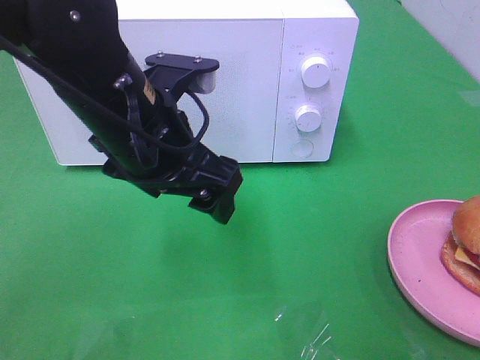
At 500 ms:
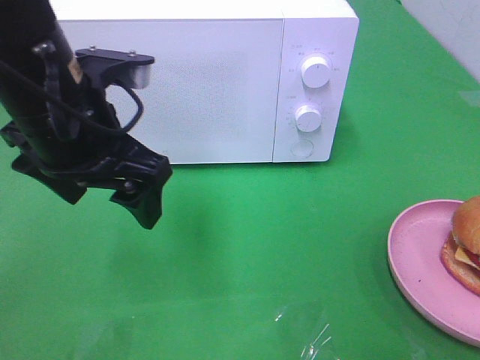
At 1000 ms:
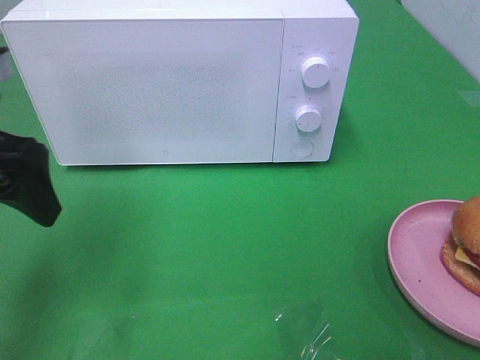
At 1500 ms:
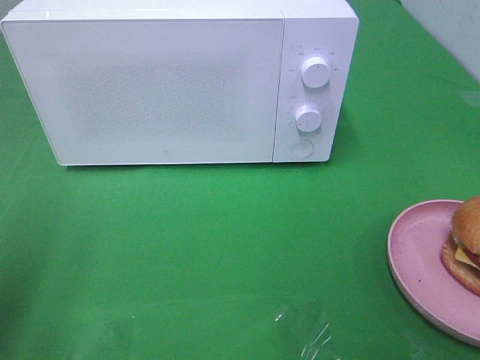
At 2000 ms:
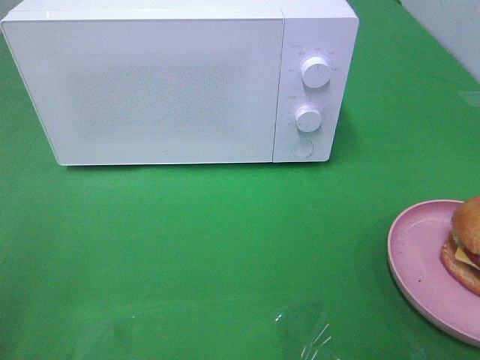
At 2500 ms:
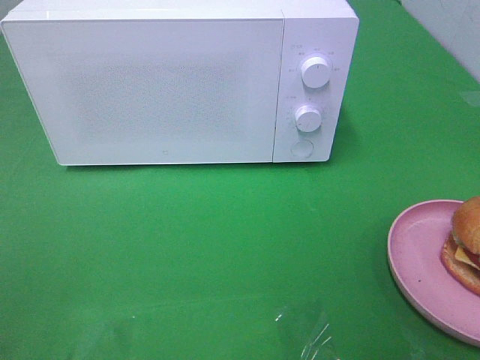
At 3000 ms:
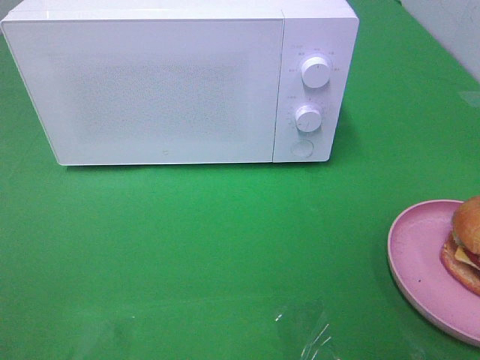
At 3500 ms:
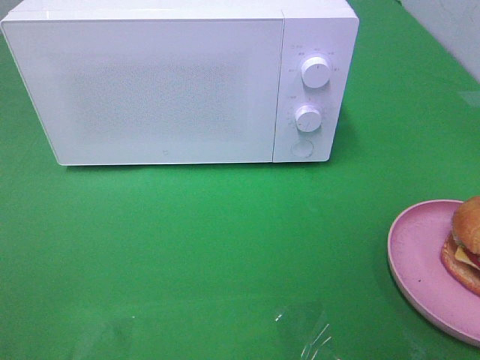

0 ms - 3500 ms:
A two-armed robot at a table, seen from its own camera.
Task of the whole recording: Heat the burger.
0 ms - 2000 ms: The left gripper shifts about 30 cm to the left and backward.

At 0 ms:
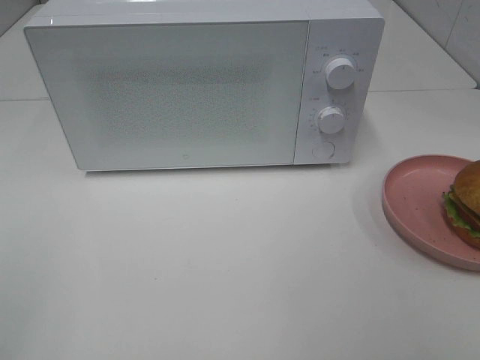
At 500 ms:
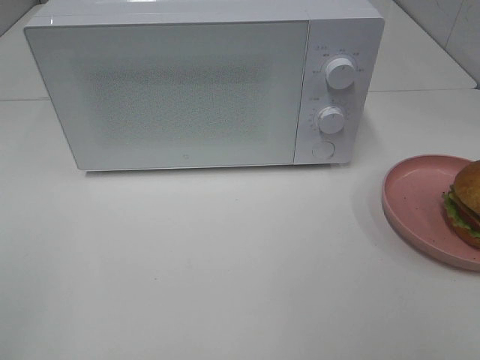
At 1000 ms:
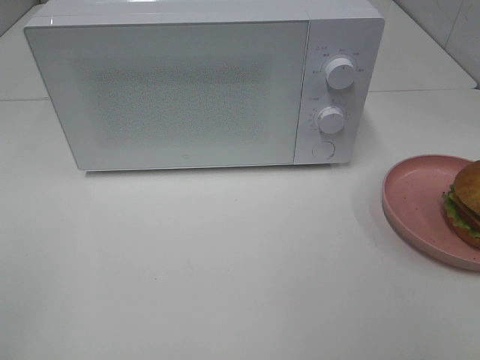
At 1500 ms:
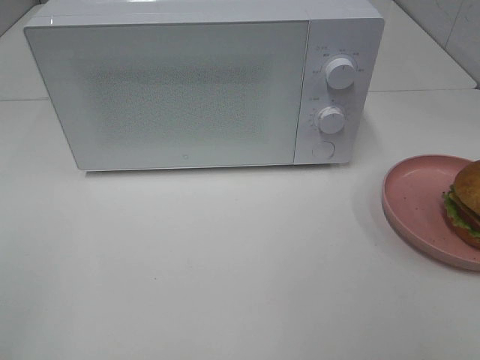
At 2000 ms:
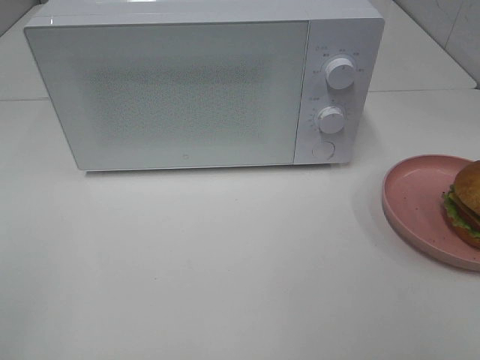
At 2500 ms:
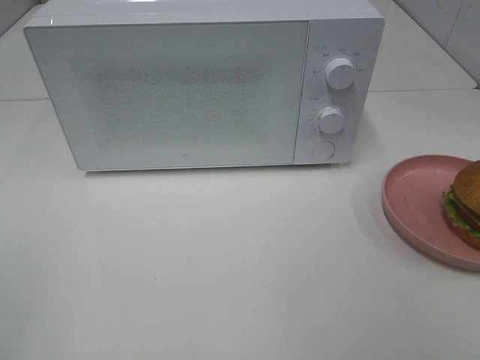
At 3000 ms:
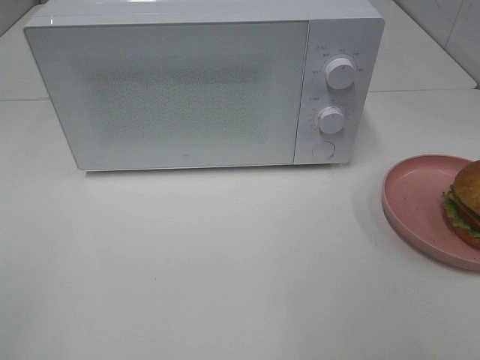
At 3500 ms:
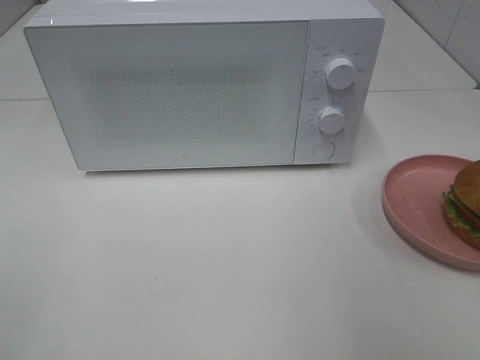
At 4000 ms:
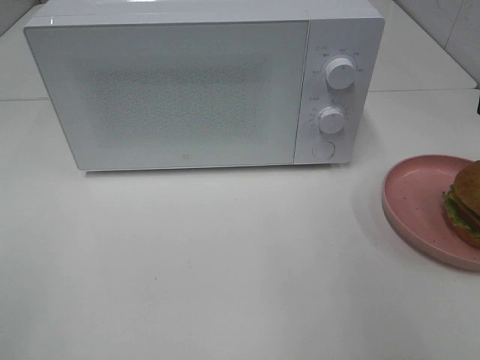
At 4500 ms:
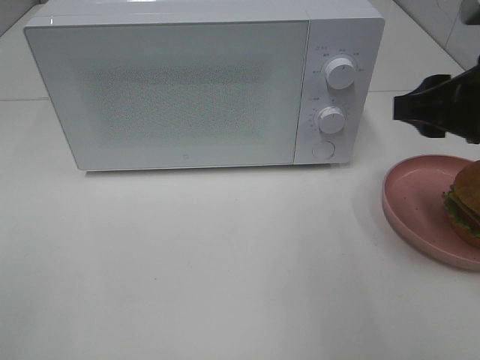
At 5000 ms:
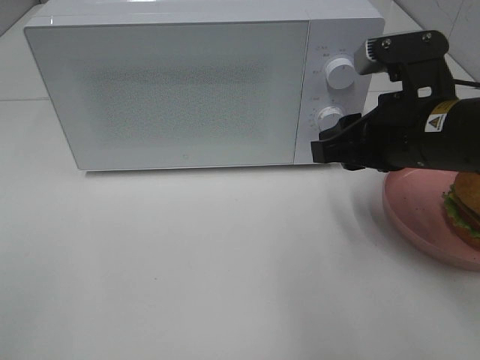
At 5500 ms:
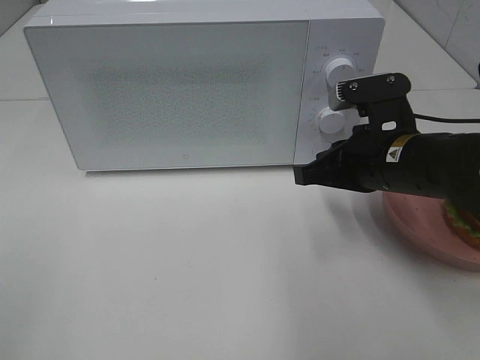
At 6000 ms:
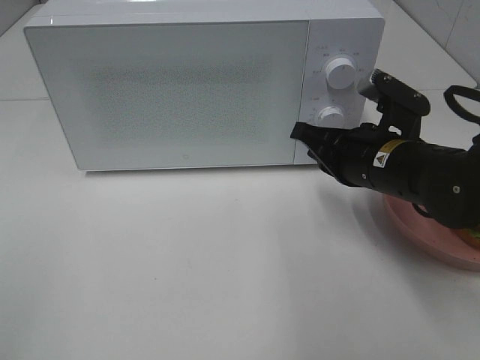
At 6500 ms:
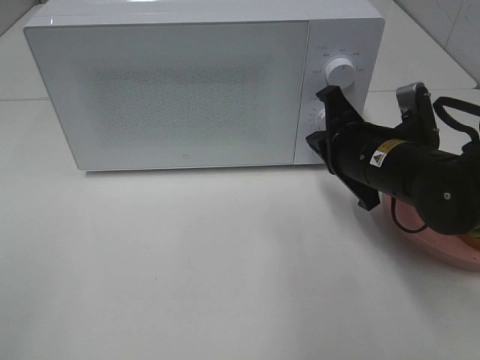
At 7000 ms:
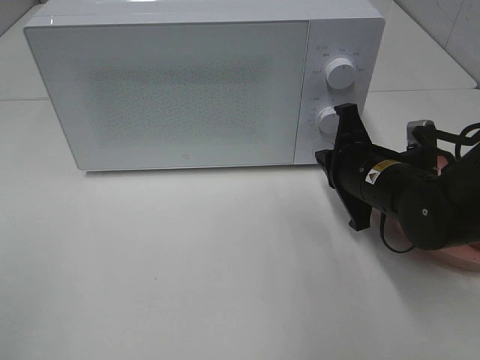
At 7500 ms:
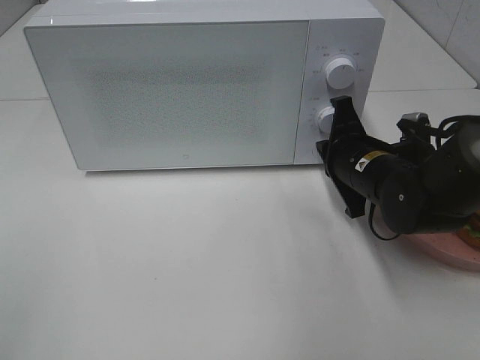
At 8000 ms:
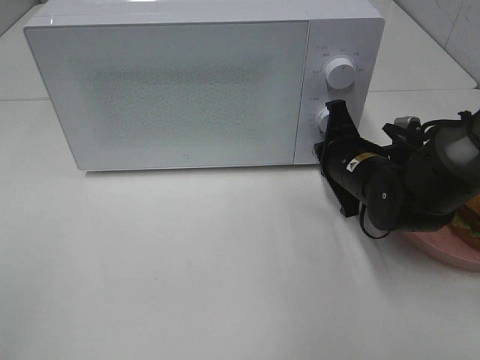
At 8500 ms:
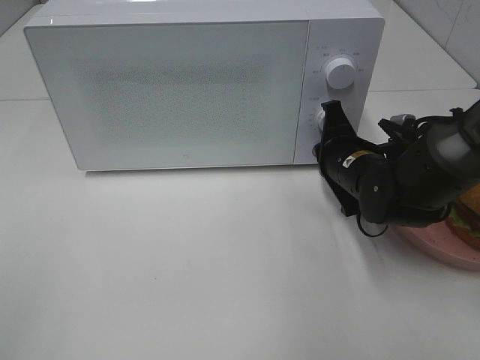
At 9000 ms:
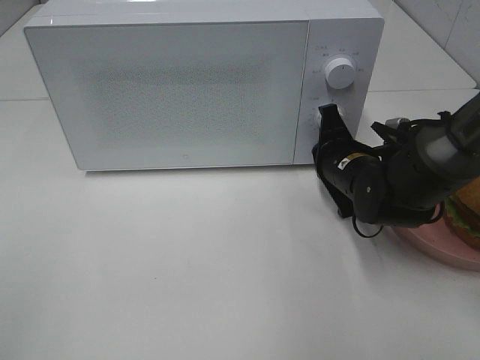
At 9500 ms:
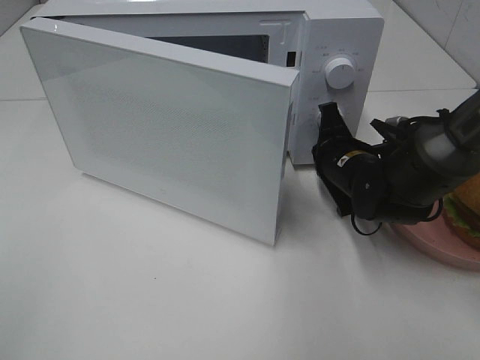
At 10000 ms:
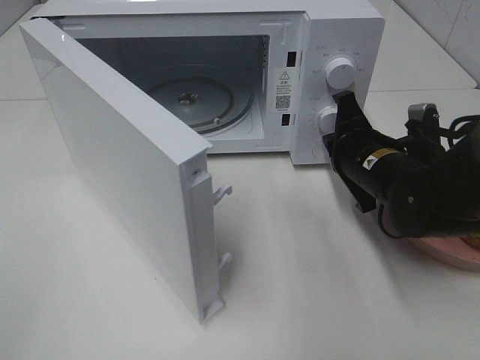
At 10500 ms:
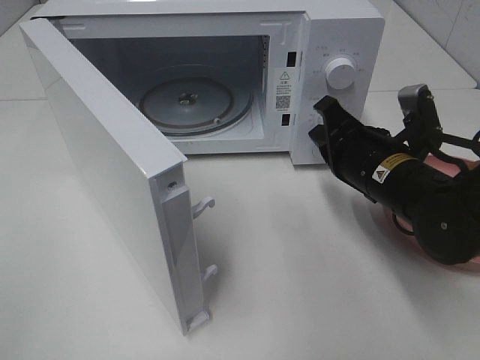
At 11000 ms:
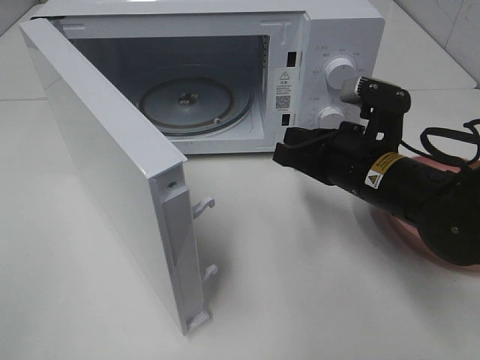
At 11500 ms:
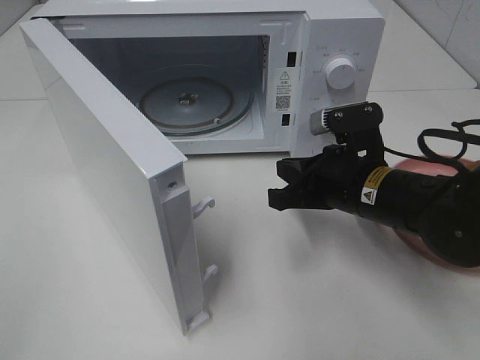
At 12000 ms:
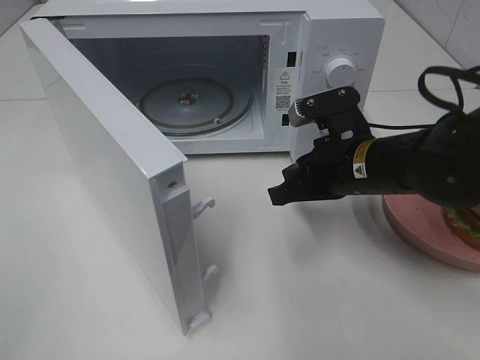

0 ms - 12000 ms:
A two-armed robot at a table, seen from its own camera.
Task of the whole recording: Heat the burger.
Step, 0 ms - 9500 ms: Right hand: press the switch.
0 ms - 2000 ms: Neither gripper changes place.
4000 ms - 6000 ms: The right gripper shifts roughly 20 cm downward, to the left and forward, and closes.
6000 ms - 8000 ms: The right gripper travels downward by approximately 5 cm.

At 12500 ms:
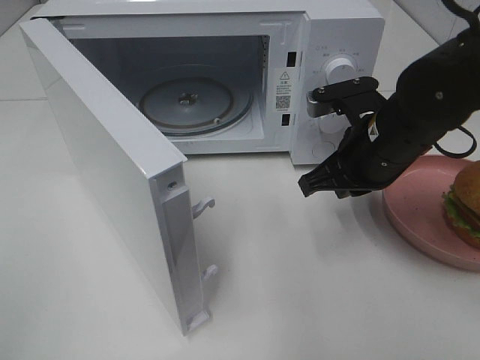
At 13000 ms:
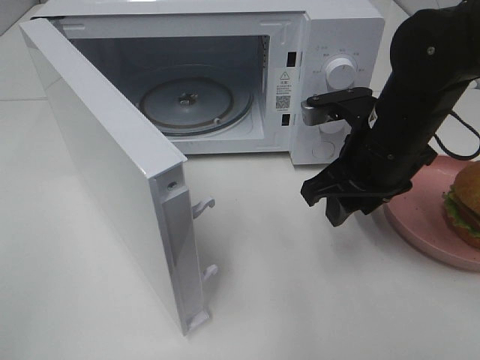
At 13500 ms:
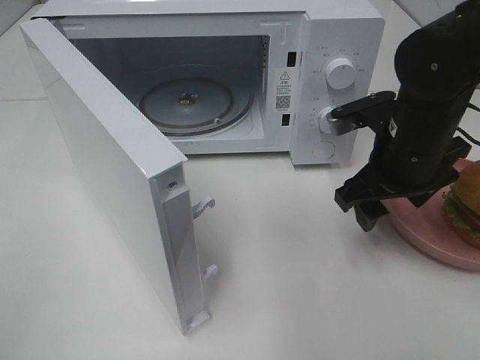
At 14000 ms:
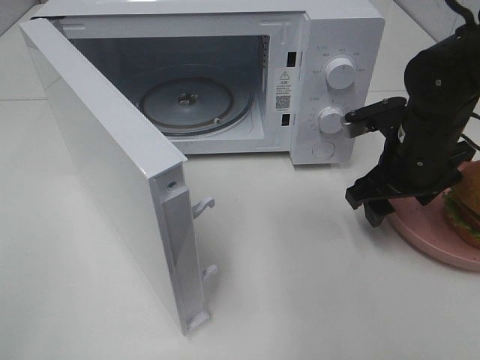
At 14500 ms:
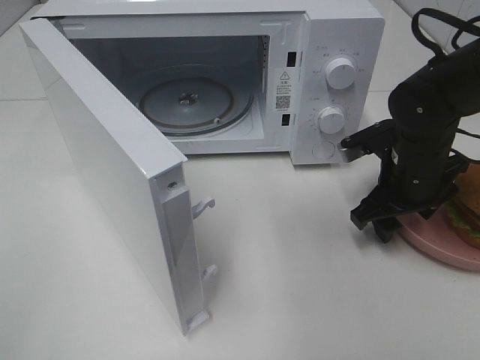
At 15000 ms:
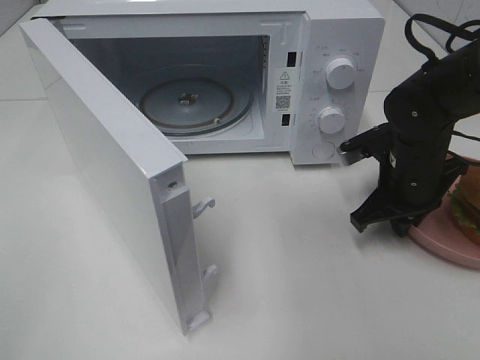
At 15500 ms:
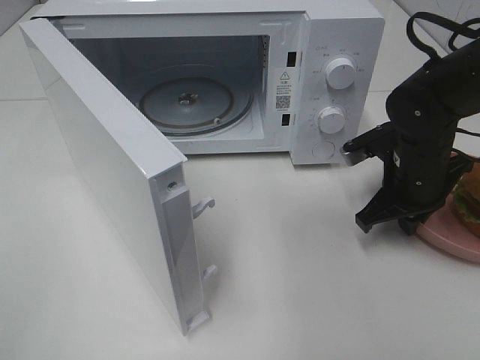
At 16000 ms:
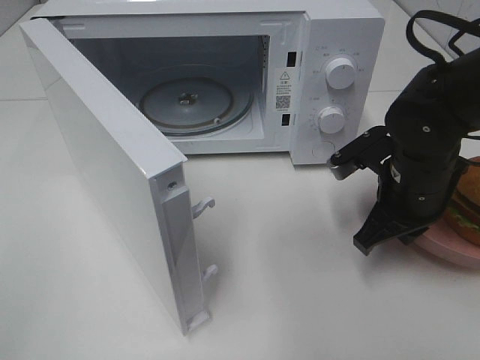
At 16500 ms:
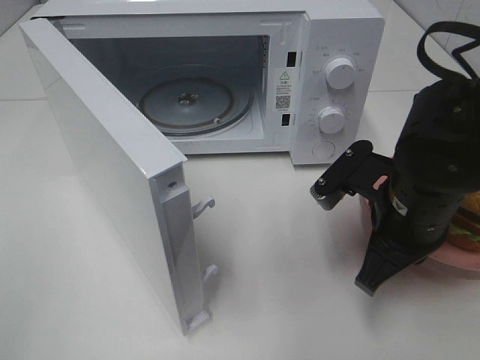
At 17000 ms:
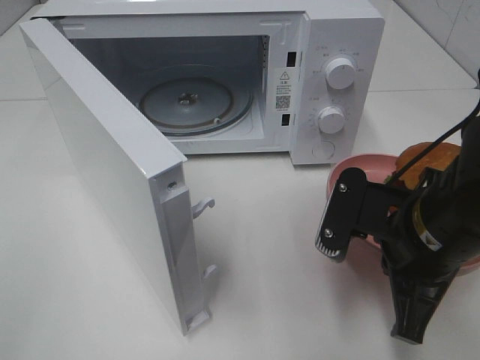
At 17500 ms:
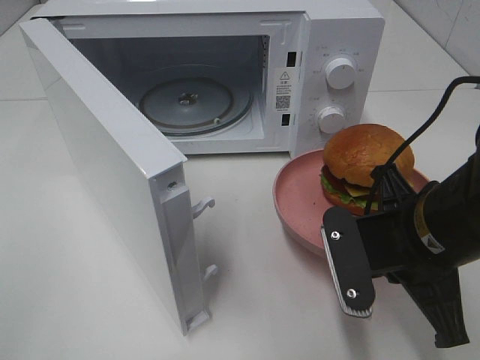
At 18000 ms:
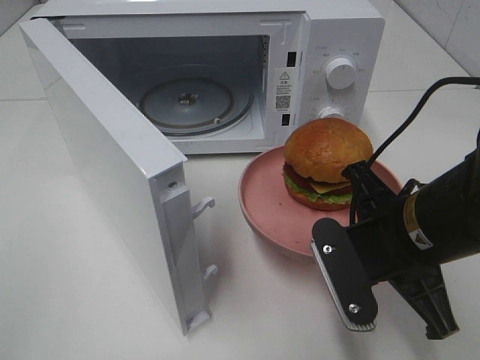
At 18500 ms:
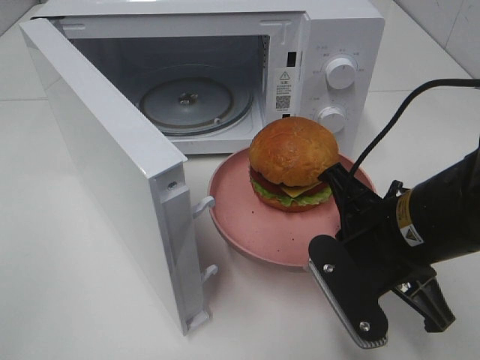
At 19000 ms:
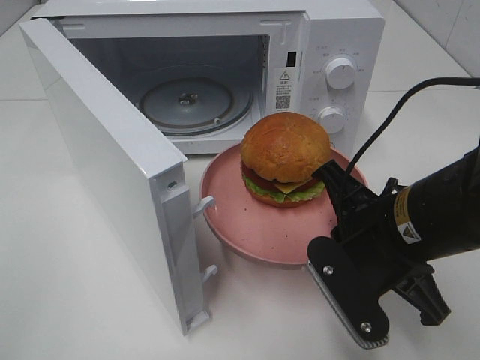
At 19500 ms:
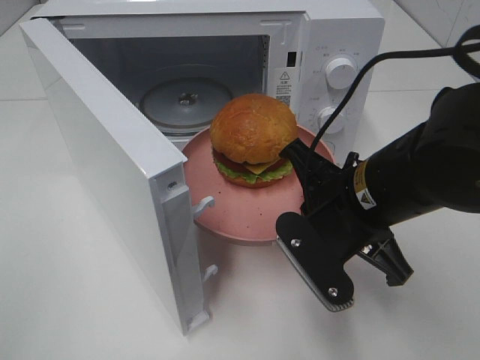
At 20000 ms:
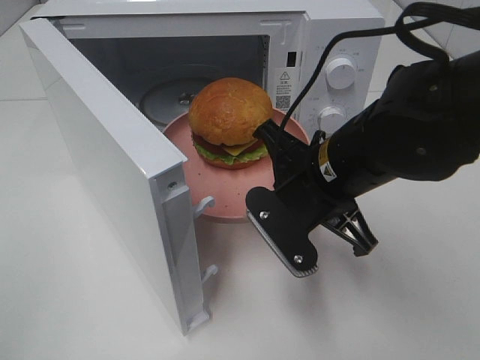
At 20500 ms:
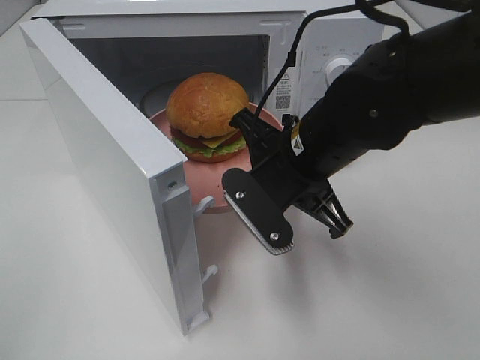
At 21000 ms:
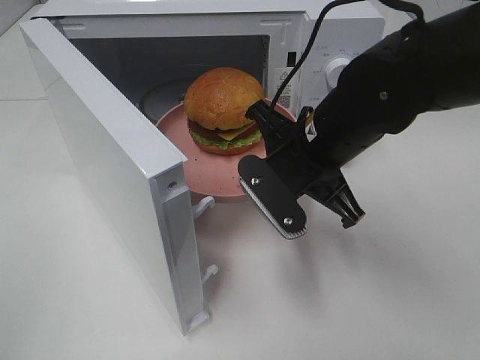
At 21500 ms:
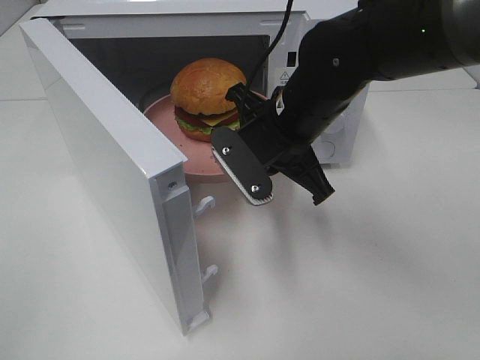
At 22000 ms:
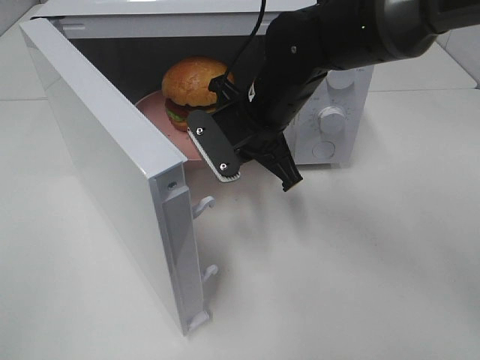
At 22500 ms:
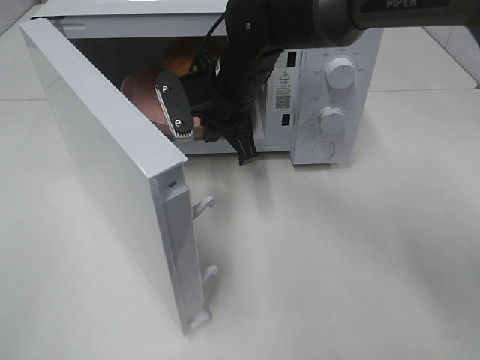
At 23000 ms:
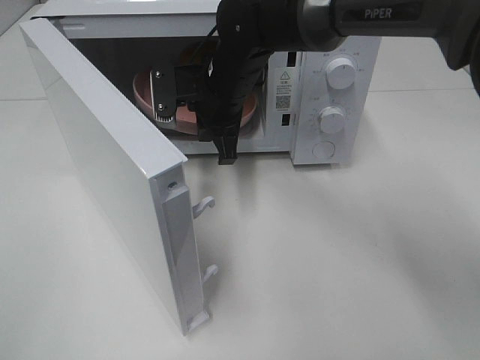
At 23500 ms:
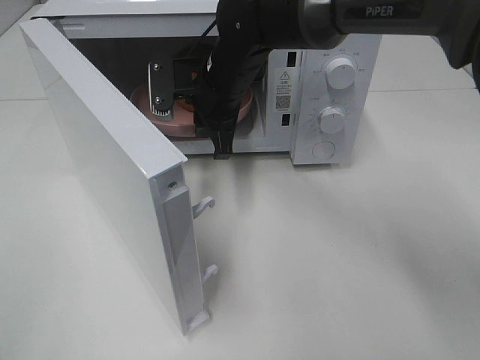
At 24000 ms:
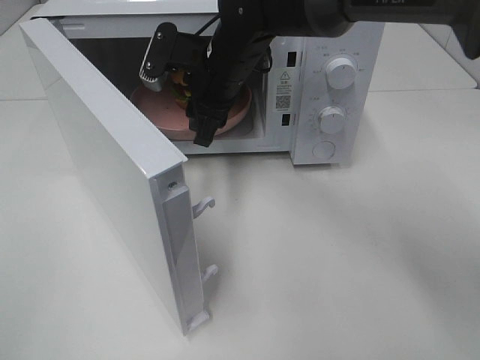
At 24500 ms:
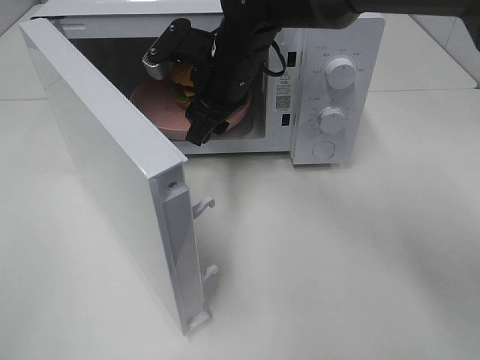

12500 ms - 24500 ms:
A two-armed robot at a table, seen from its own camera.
Task of the whole recording: Heat the burger.
Step, 12500 ms - 15000 ms: Right hand: grab the plate with the hamburger.
Step, 15500 ms - 23500 ms: Right hand: place the plate in the microwave.
12500 ms - 14500 ms: The right gripper shifts about 10 cm downward and to the right, and opens.
14500 ms - 16500 ms: The right gripper is displaced backward by some 10 cm, and closes up.
18500 ms - 20500 ms: The right gripper travels forward and to the left by roughly 10 cm.
20500 ms - 22500 ms: The right gripper heads forward and to the left, covering approximately 15 cm.
22500 ms - 24500 ms: The right gripper opens its fingers.
